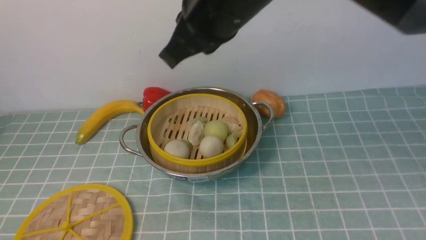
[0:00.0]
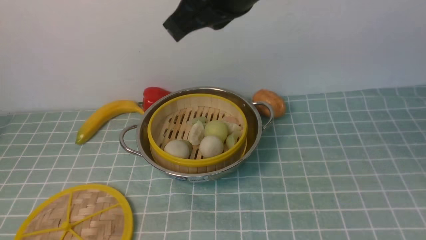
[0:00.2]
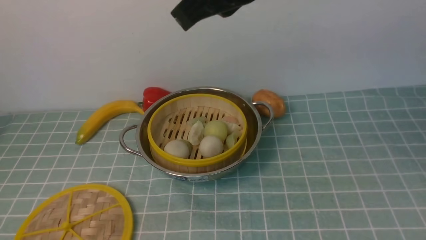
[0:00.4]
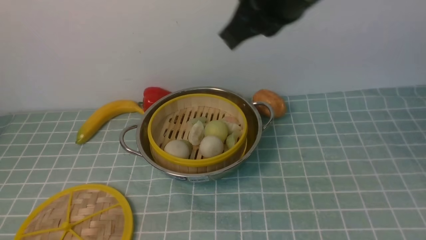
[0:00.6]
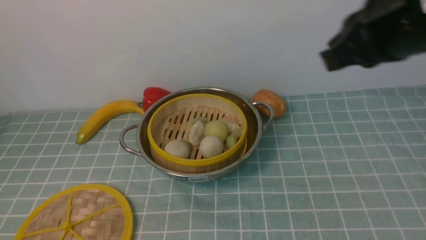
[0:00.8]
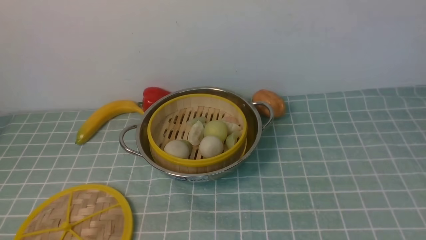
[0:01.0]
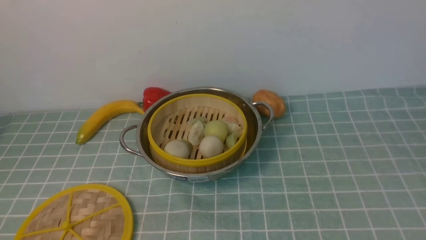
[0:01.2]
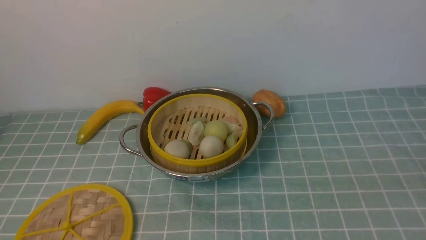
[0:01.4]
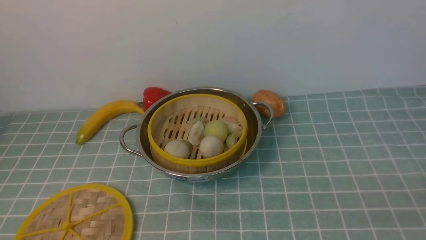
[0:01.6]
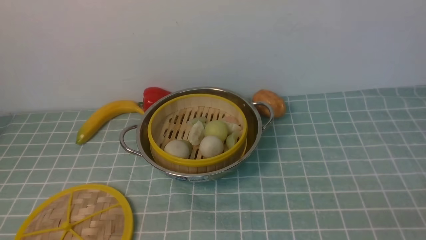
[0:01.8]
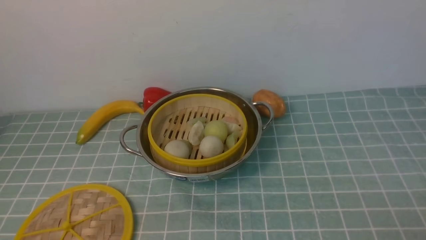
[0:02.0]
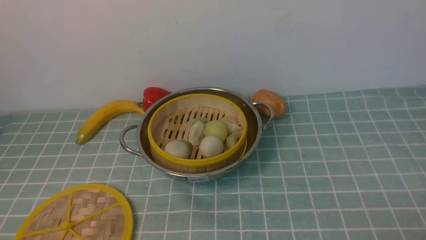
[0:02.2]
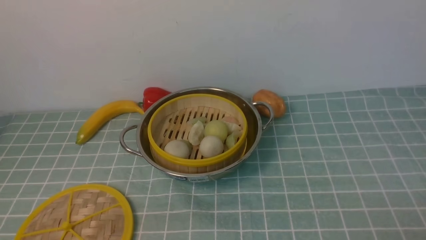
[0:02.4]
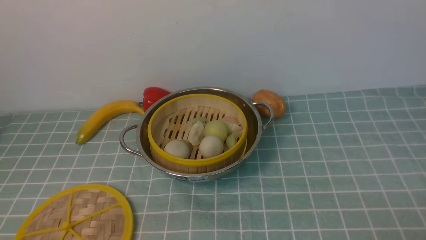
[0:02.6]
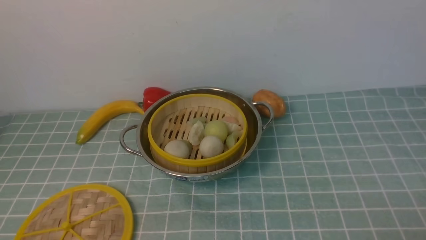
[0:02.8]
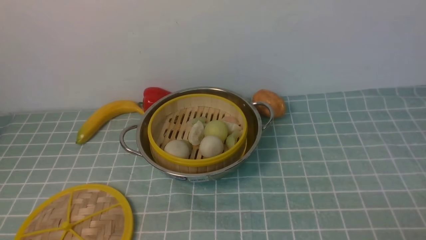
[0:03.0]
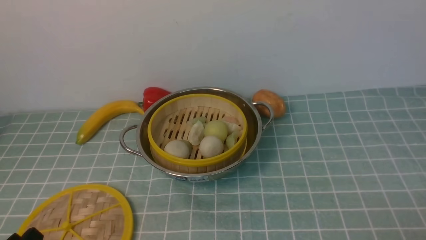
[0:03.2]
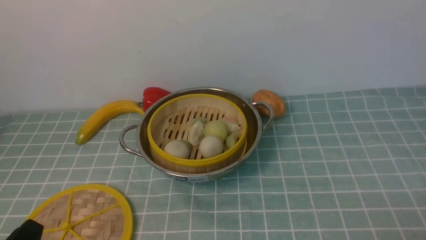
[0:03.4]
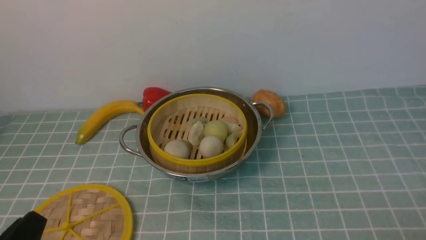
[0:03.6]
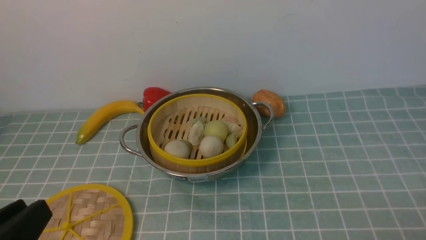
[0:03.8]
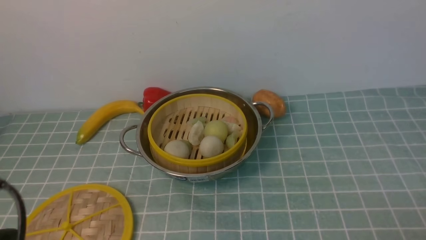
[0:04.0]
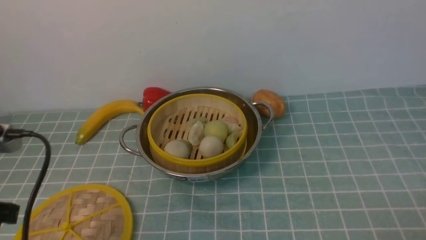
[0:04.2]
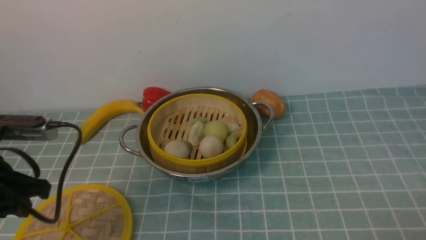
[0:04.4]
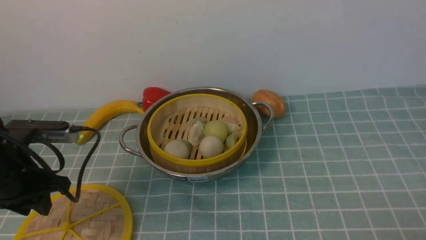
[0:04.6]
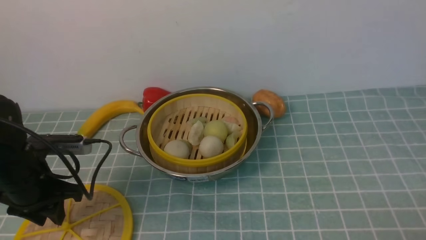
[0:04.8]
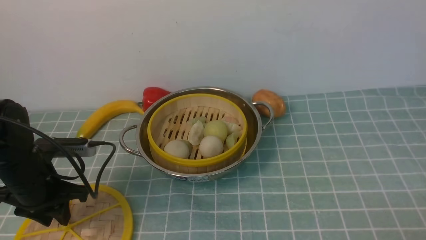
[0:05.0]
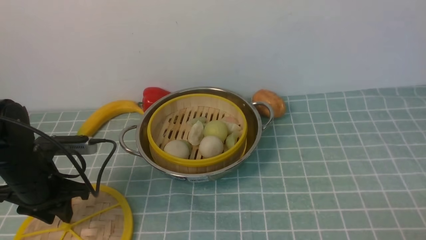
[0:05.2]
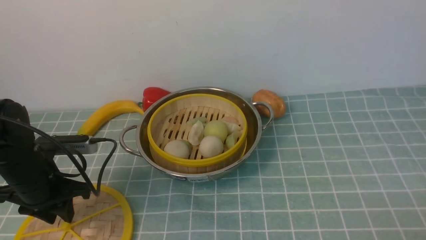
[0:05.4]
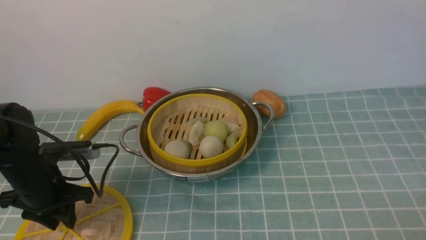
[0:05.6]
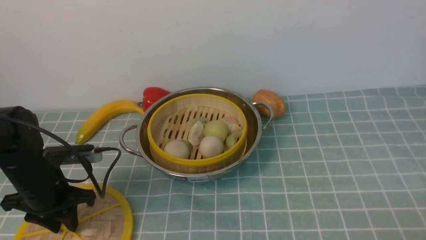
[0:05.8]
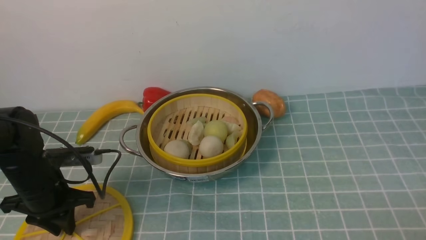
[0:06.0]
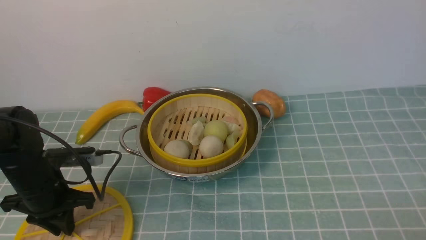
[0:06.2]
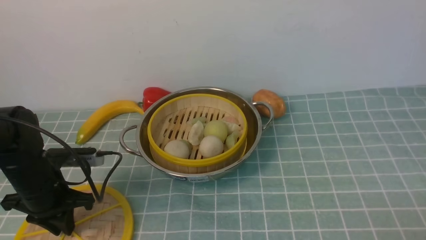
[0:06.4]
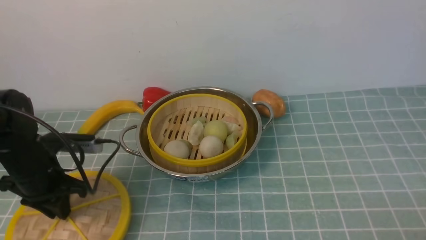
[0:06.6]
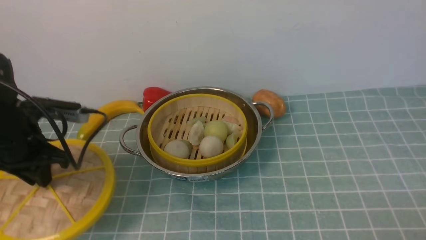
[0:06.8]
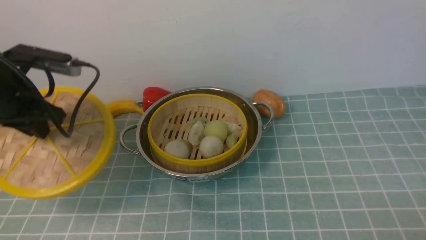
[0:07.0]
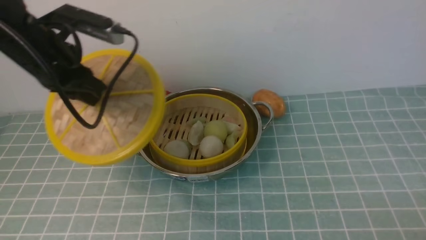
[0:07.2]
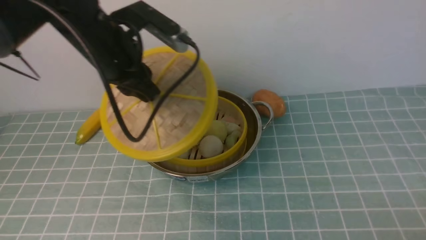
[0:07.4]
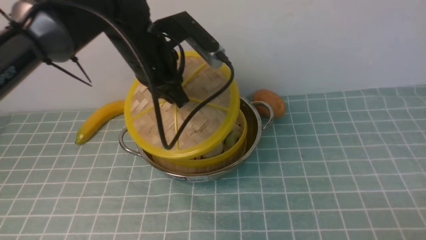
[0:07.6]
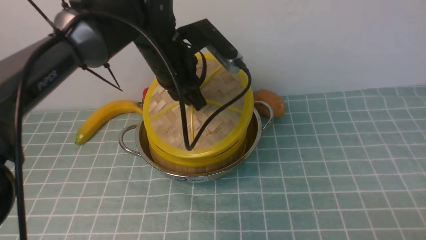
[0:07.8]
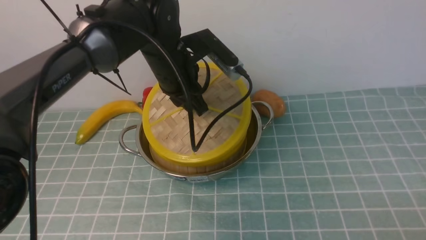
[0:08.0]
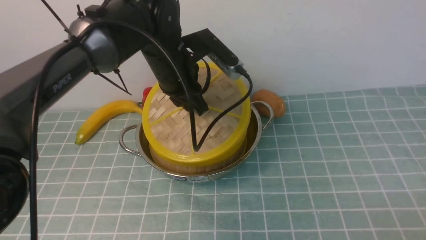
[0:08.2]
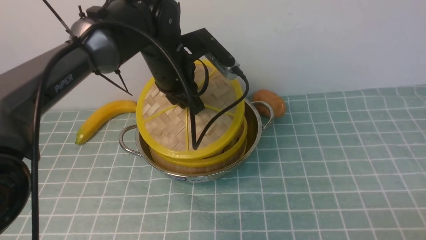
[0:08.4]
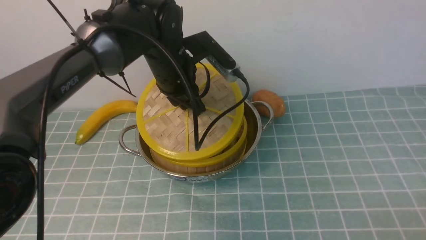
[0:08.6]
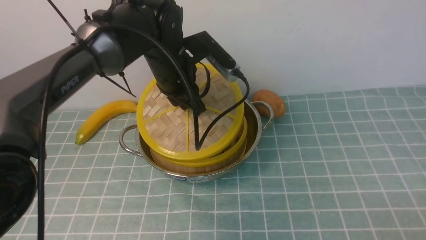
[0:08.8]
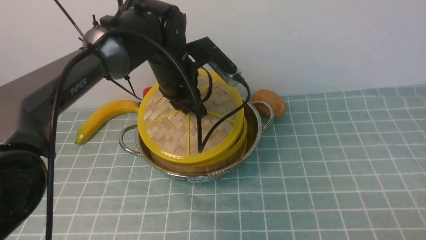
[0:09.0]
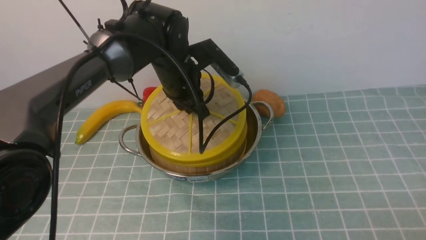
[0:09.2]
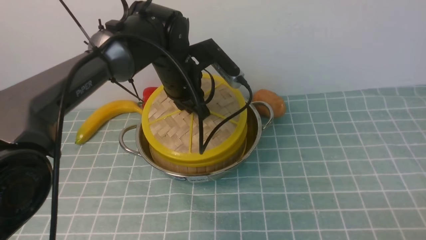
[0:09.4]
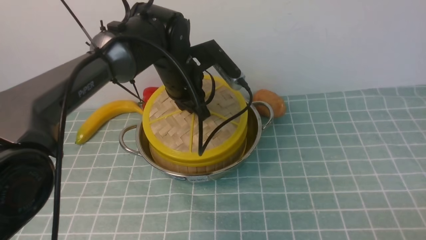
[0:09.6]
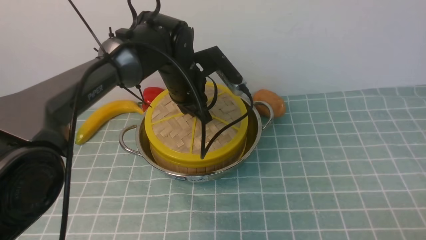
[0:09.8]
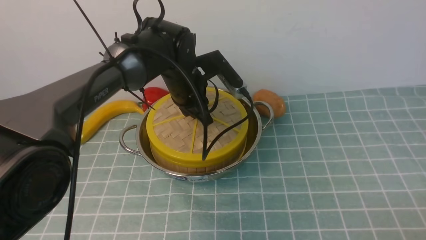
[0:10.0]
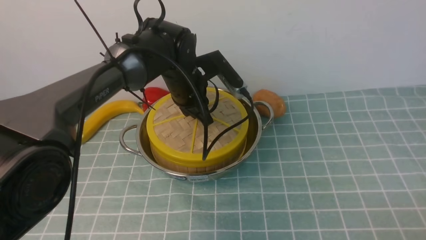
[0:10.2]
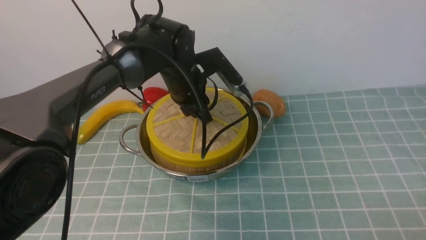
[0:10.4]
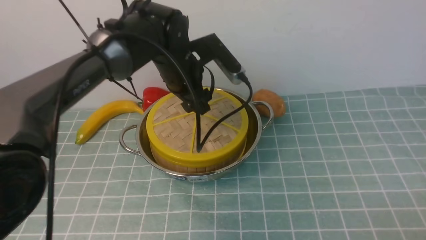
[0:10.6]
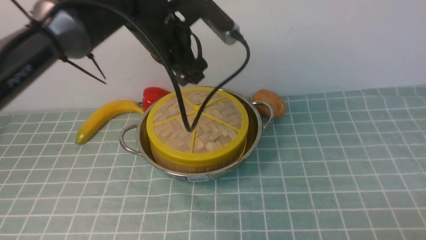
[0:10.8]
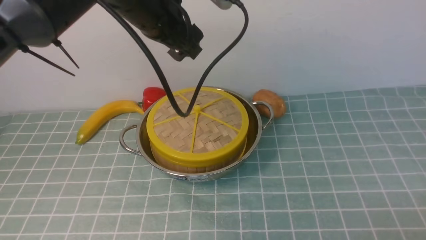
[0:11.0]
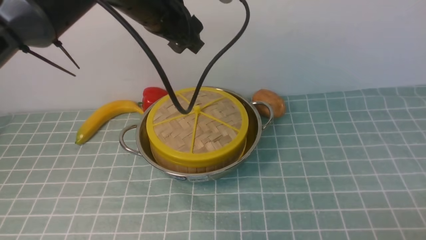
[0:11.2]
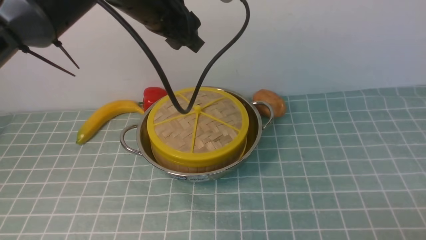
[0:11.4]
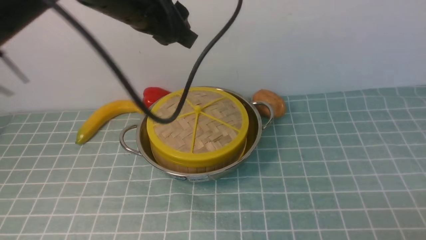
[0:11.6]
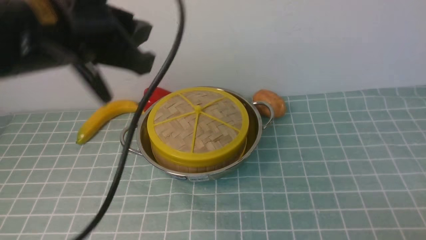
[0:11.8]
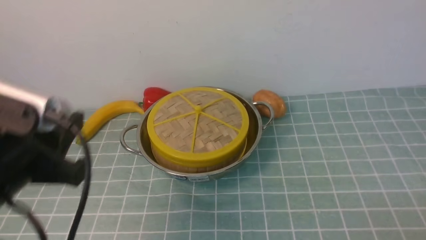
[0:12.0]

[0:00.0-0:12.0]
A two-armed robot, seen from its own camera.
Task of the whole recording: place the steamer in the pot on the blue tablecloth, and put the lid on the steamer.
Step, 0:00.0 to 0:06.8: use the left arm to lift the lid of the steamer.
Step, 0:07.0 to 0:11.0: use the left arm to place the steamer lid on the steamer.
0:00.0 to 0:01.6: The right gripper heads to the right, backward and downward, covering about 40 cm.
0:03.0 to 0:04.4: The left gripper is displaced forward and upward by approximately 20 cm.
0:04.4 to 0:06.0: The left gripper travels downward and forward by approximately 15 cm.
0:06.0 to 0:07.6: The left gripper is displaced upward, to the right and forward by some 25 cm.
0:07.6 to 0:09.0: The left gripper heads downward, covering some 5 cm.
0:09.0 to 0:10.4: The grippers stay close to where they were, moving slightly.
0:10.4 to 0:12.0: The left gripper goes roughly 30 cm backward, to the left and upward, and opens and closes again.

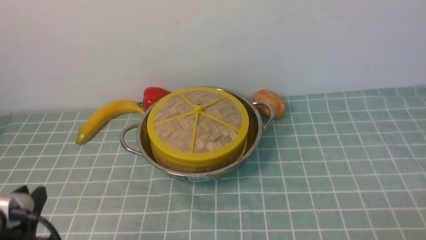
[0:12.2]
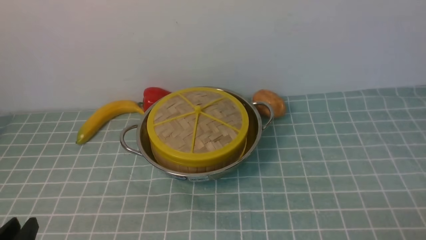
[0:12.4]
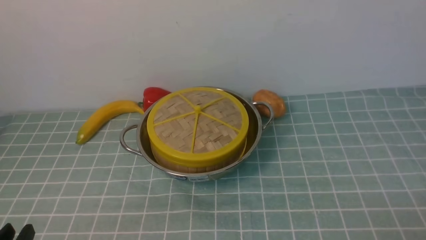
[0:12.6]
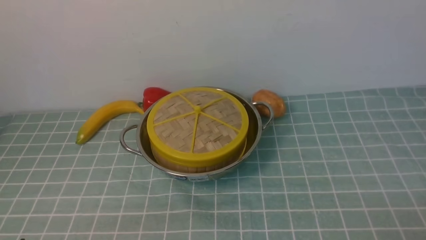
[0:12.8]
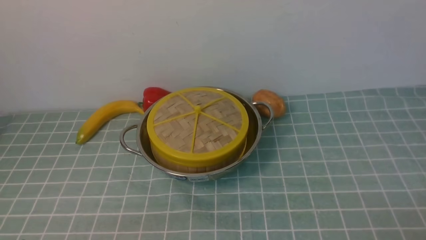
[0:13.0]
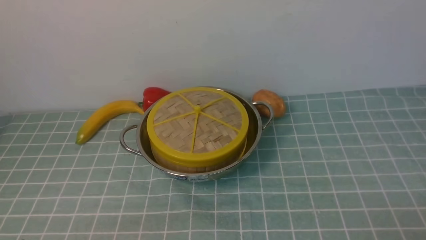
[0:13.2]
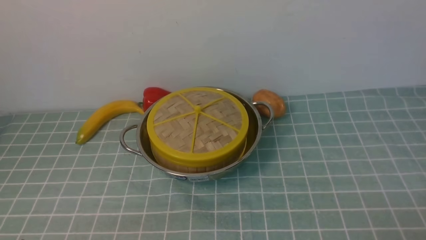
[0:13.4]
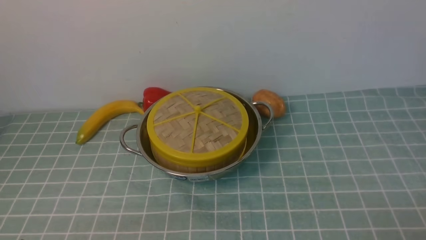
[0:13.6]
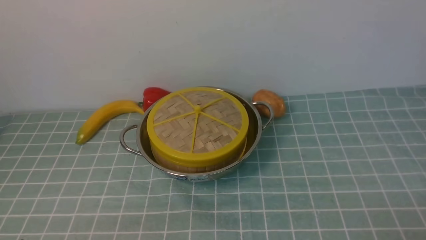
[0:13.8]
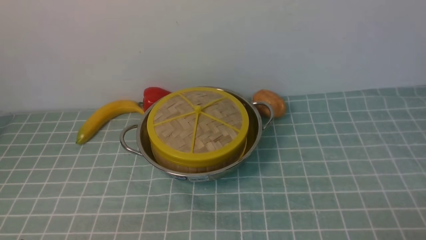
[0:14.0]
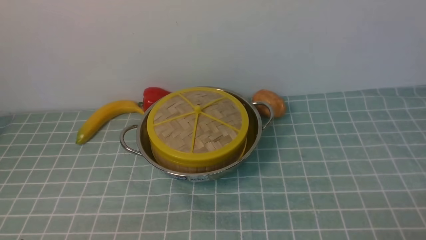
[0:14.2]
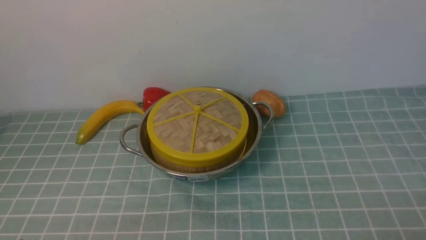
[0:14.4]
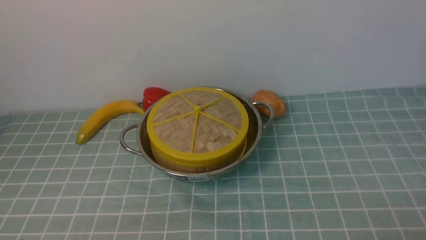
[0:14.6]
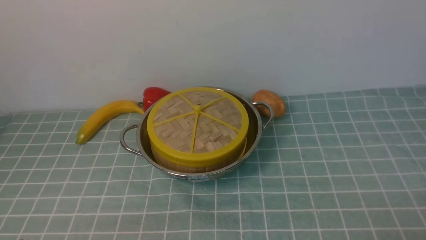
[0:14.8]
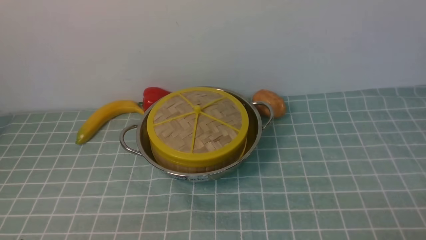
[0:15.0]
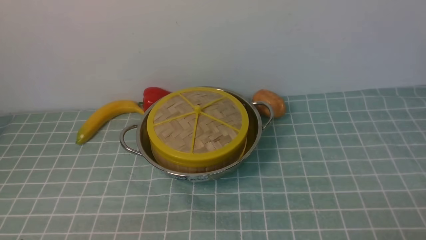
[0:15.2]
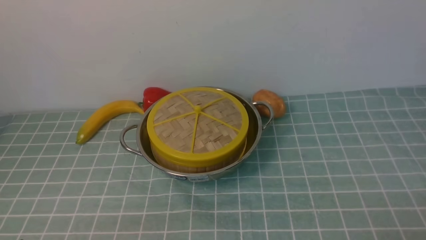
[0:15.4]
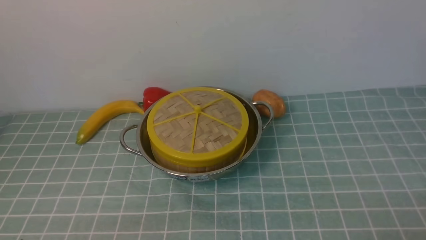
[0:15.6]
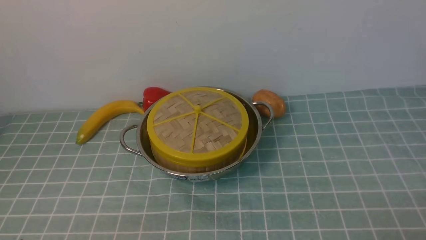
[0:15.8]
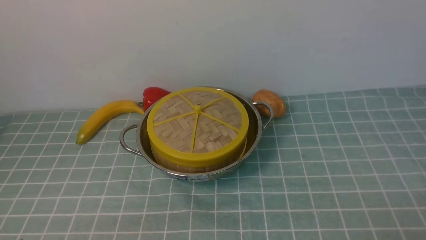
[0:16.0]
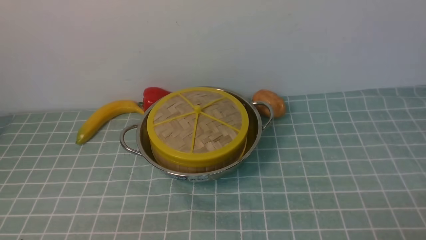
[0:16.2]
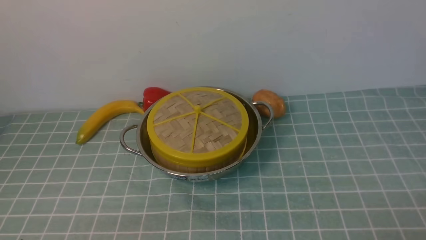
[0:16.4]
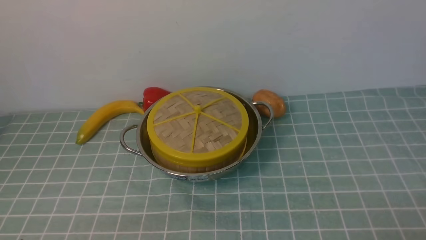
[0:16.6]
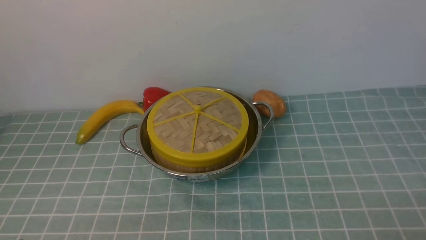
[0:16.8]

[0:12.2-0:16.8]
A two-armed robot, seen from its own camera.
Task of the whole recording: place the steamer in the pot on the blue tablecloth, and put the lid on the steamer.
0:12.2 to 0:13.8: The left gripper is displaced downward and backward by some 10 cm.
0:15.2 to 0:16.8: Neither gripper changes place.
